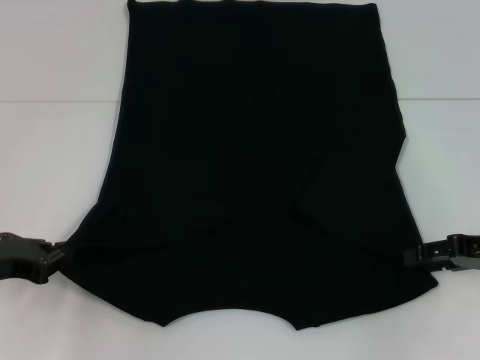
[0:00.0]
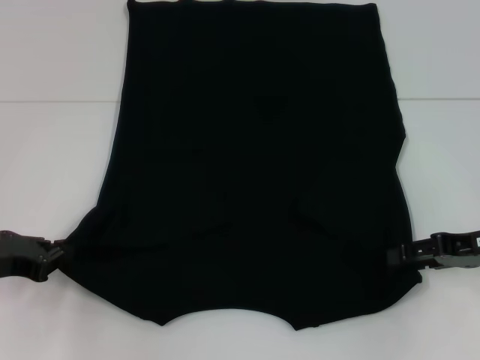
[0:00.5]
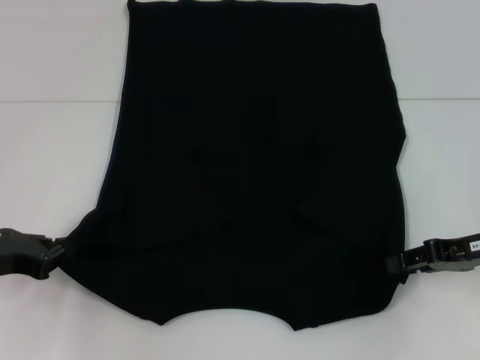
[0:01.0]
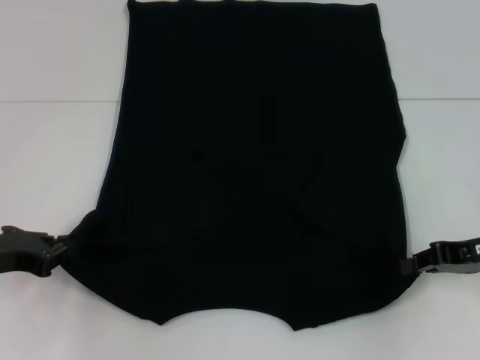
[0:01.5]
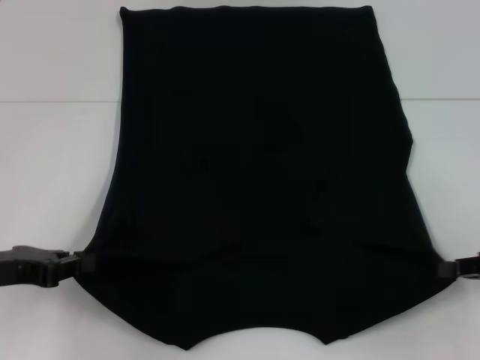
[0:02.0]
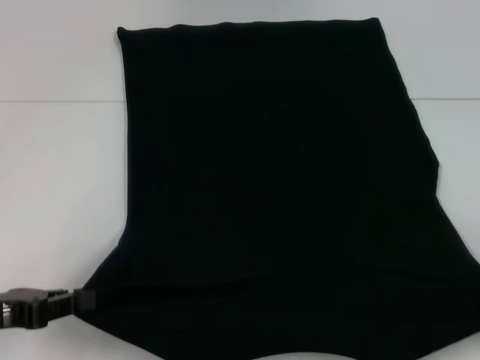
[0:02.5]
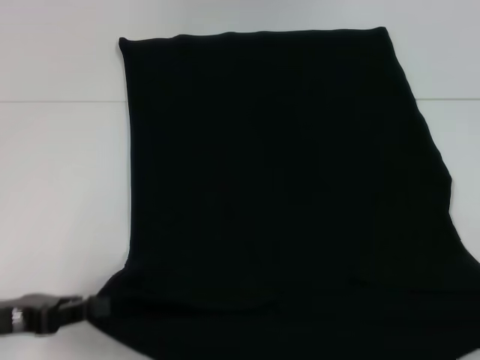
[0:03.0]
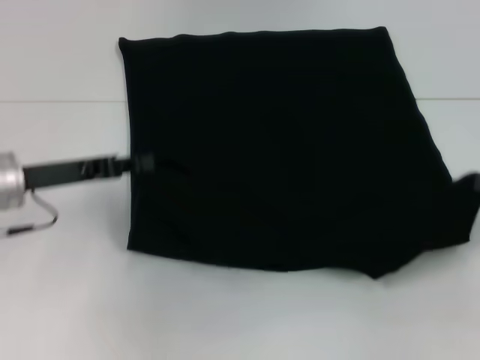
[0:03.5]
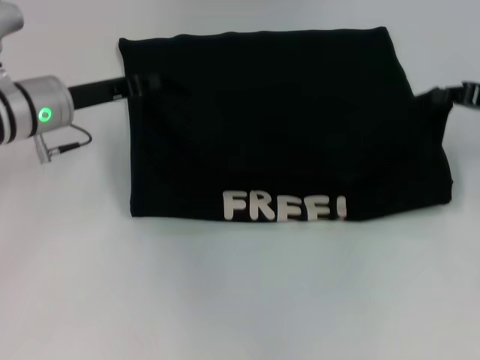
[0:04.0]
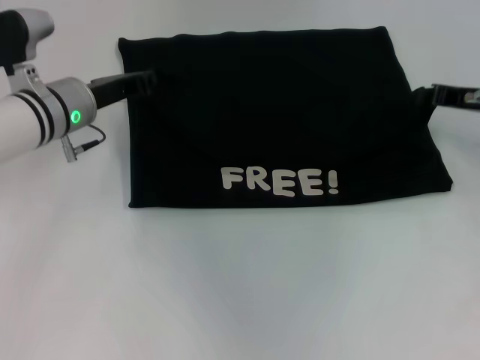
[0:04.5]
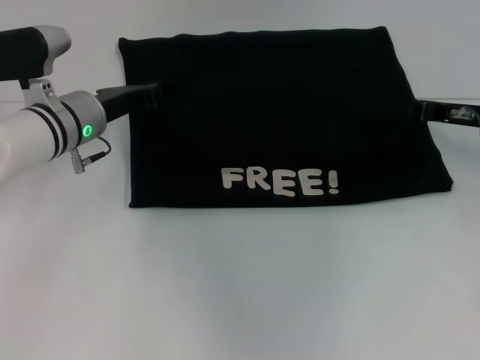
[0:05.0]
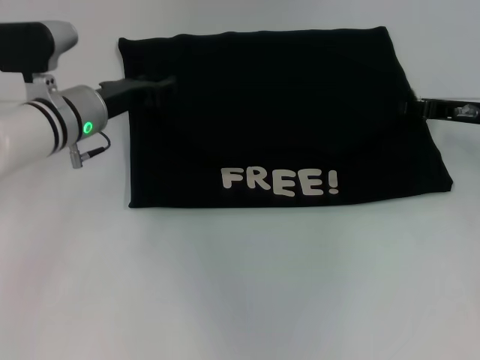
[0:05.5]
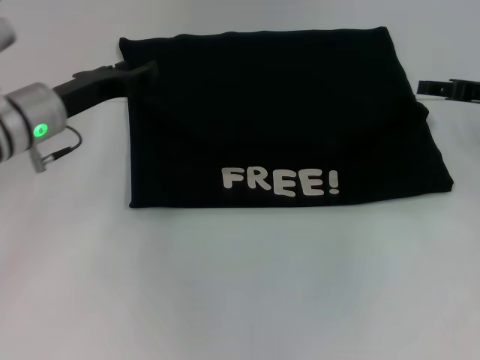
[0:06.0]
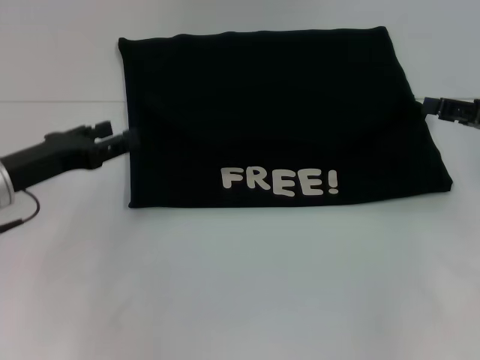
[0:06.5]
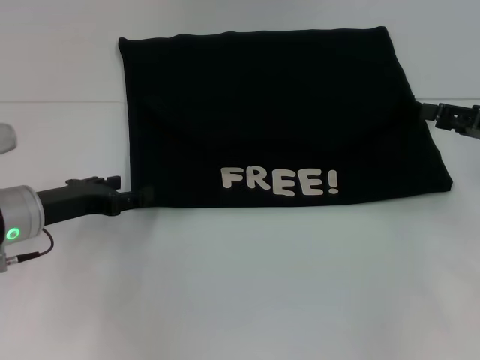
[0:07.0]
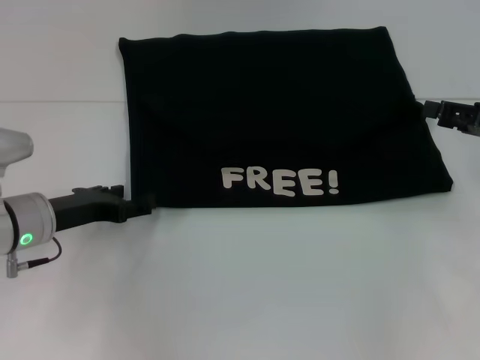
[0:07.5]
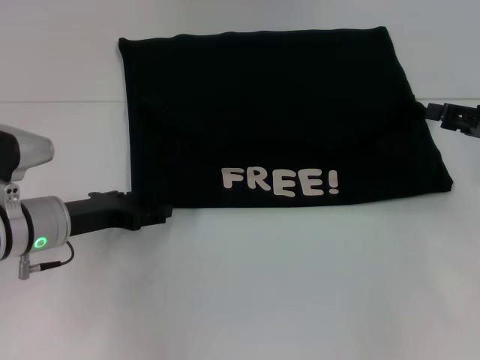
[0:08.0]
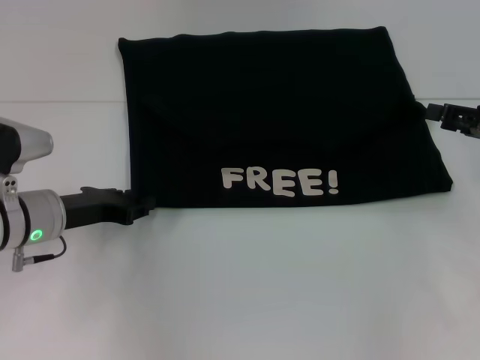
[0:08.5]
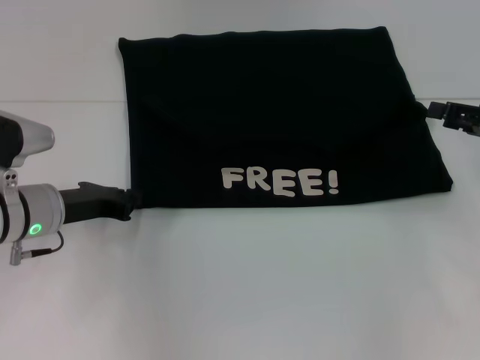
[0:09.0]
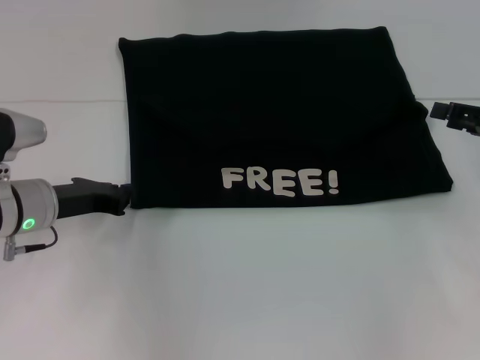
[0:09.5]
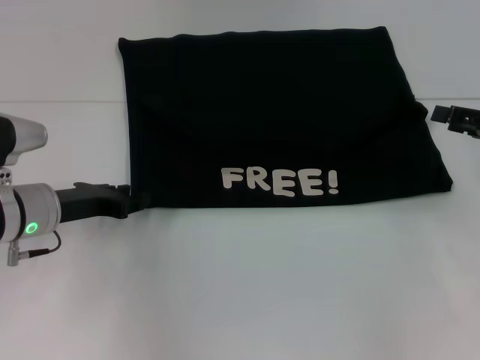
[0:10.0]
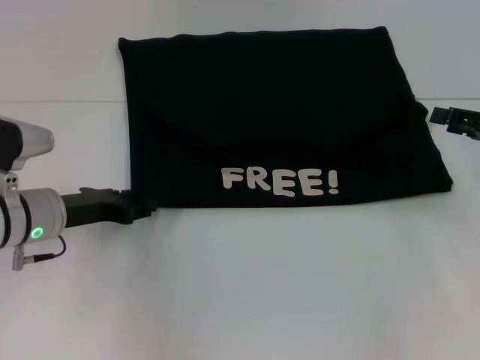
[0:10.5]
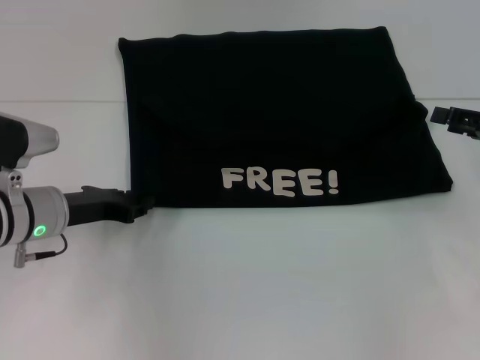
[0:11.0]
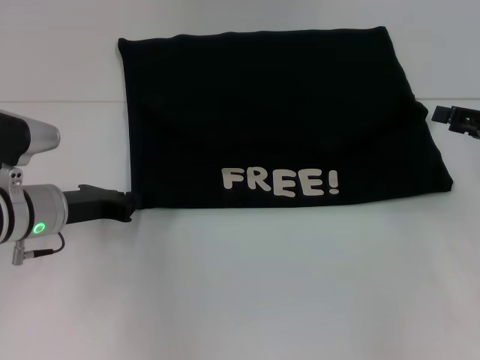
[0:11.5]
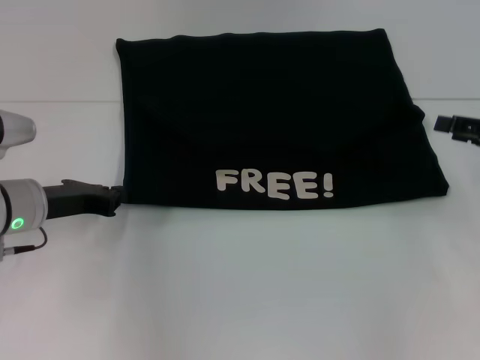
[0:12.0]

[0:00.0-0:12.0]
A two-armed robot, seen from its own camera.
Step, 0:02.0 to 0:06.0: Fold the clothes with your left hand.
Step, 0:02.0 to 0:06.0: Fold the clothes with your right hand.
0:00.0 to 0:02.0: The right gripper closes.
0:02.0 to 0:04.0: The left gripper heads forward and to the right, covering roughly 20 cm. The right gripper shifts some 15 cm forward and upward.
0:04.0 to 0:06.0: The left gripper opens, while the right gripper opens.
0:06.0 to 0:08.0: The left gripper shifts roughly 10 cm downward and backward. The right gripper heads backward, covering some 5 cm.
0:08.0 to 0:10.0: The left gripper closes up.
0:10.0 to 0:12.0: The left gripper opens and closes again.

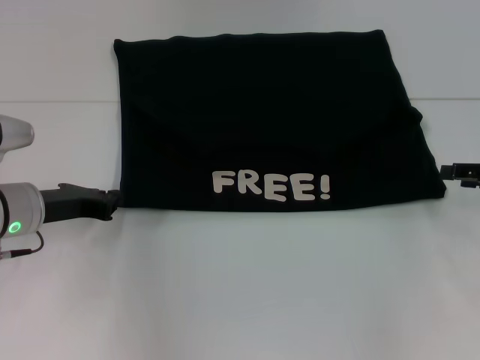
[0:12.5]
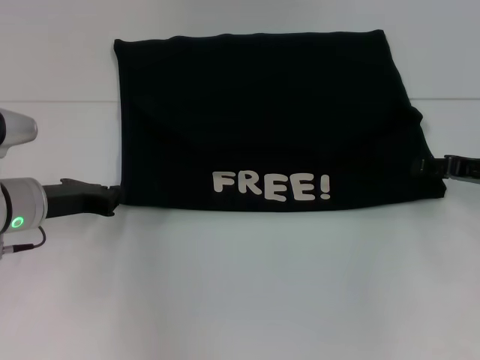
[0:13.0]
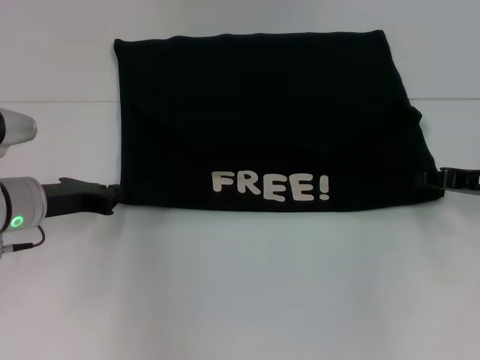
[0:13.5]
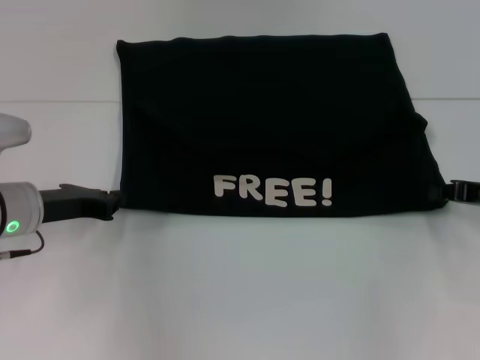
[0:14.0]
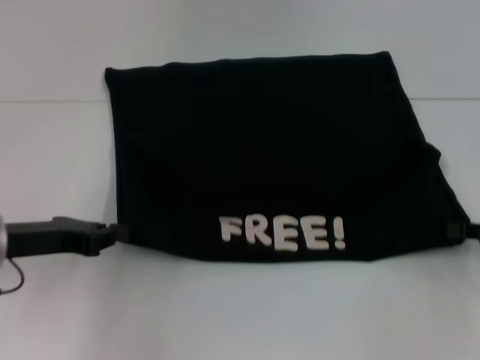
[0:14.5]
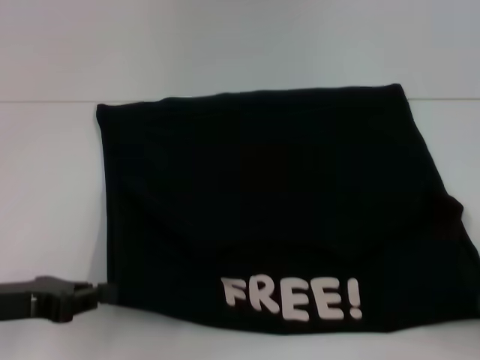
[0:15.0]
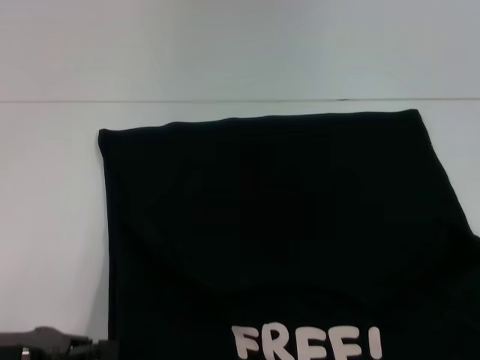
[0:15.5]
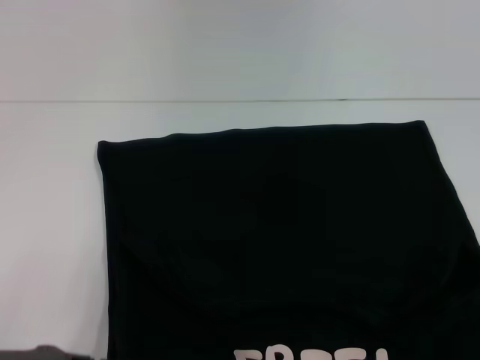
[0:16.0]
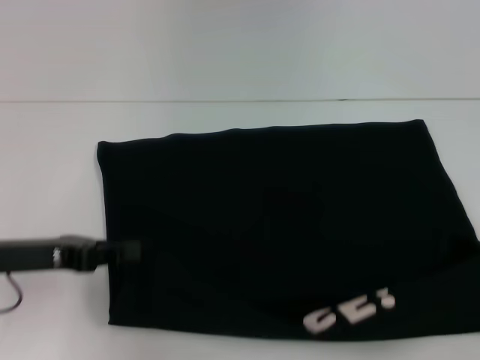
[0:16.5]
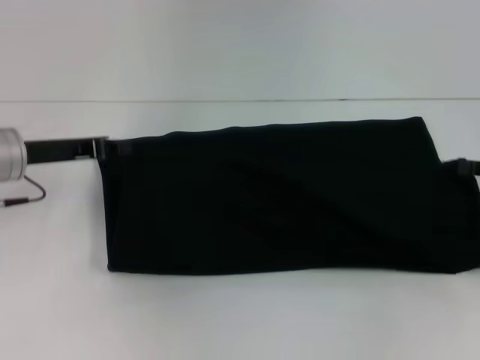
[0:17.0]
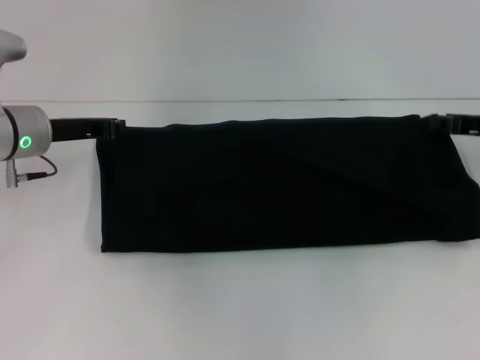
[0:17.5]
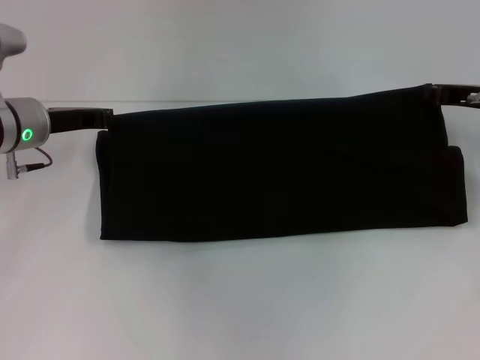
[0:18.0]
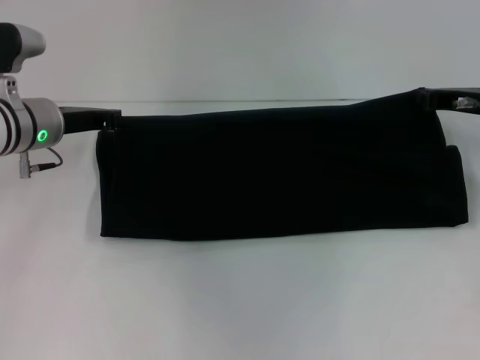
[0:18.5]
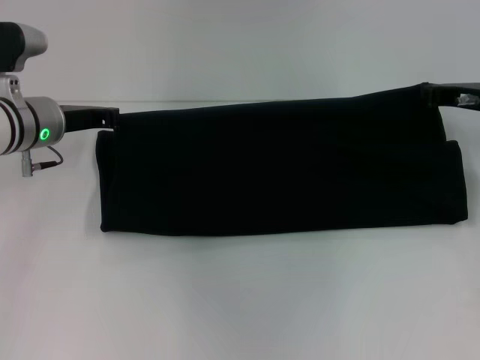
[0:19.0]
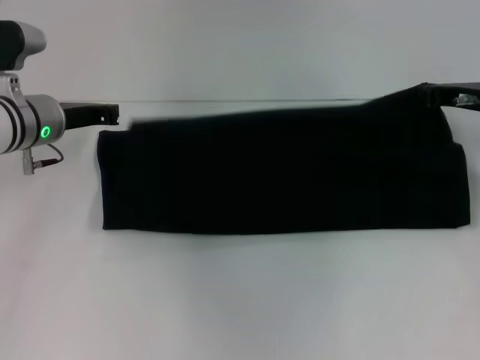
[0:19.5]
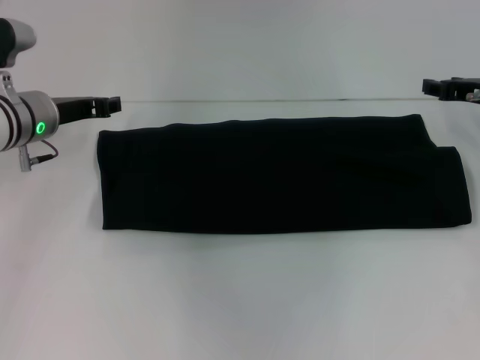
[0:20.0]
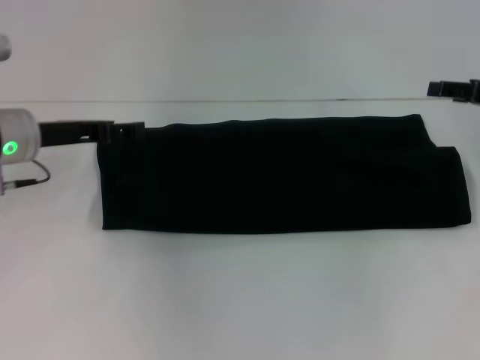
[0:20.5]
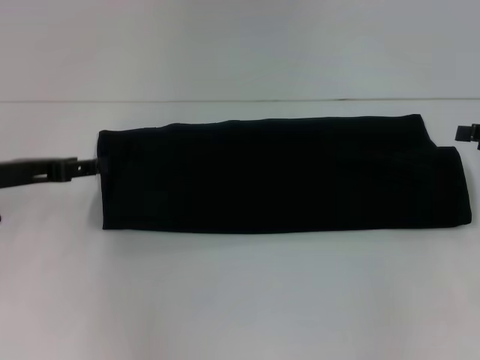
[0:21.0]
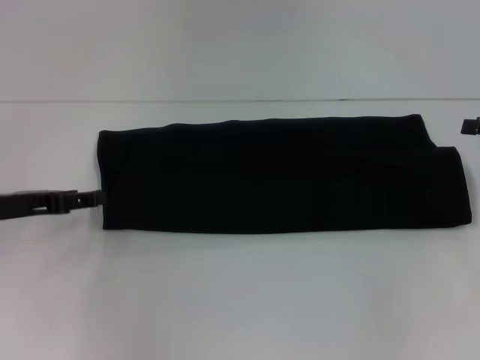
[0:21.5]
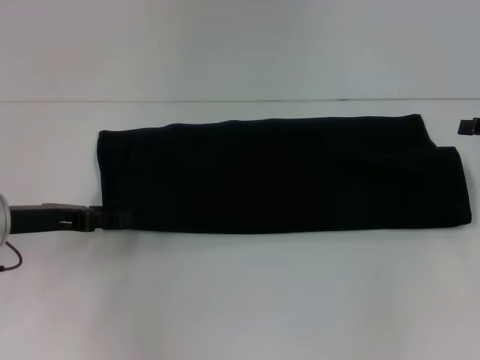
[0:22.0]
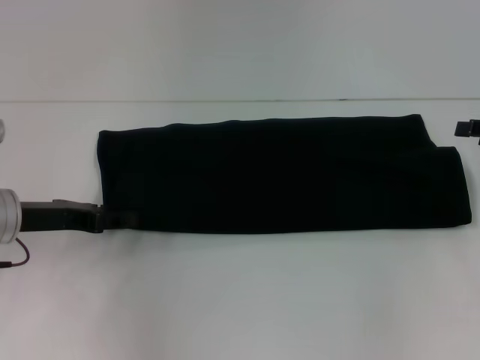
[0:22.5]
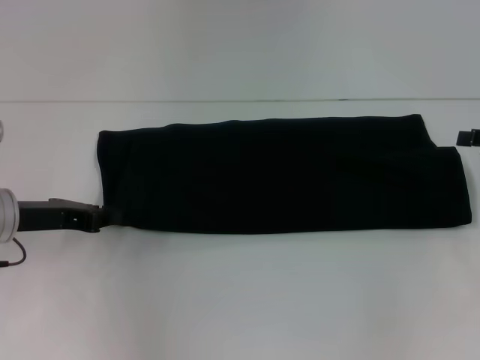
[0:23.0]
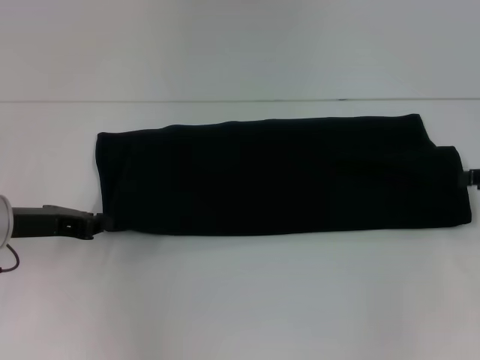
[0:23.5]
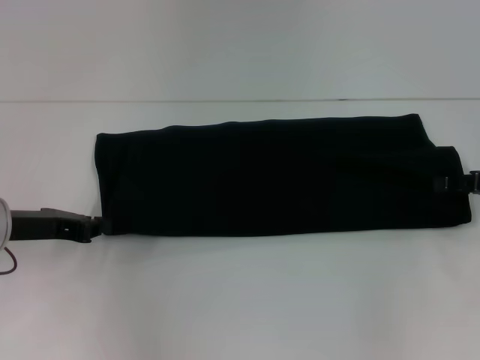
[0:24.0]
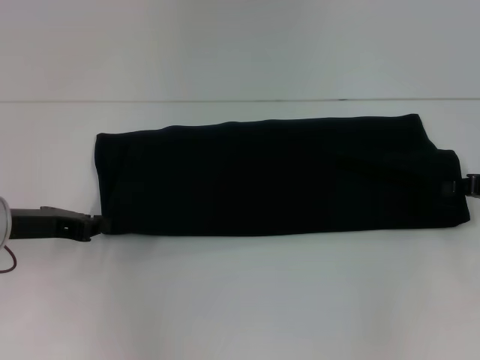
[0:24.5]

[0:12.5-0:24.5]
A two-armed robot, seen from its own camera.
Step, 0:12.5 to 0:15.5: Pull the clothes with your left hand.
Step, 0:12.5 to 0:15.5: Pull the clothes with your right hand.
Step, 0:16.0 to 0:19.5: Fold the clothes with your right hand.
0:12.5 to 0:14.5: The left gripper moves approximately 5 cm. The right gripper changes place by some 5 cm, and closes.
0:14.5 to 0:16.5: The right gripper heads backward, covering some 5 cm. Meanwhile the left gripper reaches roughly 10 cm backward, then returns.
0:16.5 to 0:18.5: The right gripper is displaced forward and to the left by some 25 cm; the left gripper shifts some 15 cm forward.
0:18.5 to 0:20.5: The left gripper opens its fingers. The right gripper is displaced to the right by roughly 5 cm, and opens up.
0:20.5 to 0:22.5: The left gripper goes about 5 cm backward.
0:22.5 to 0:24.5: The left gripper closes up; the right gripper closes.

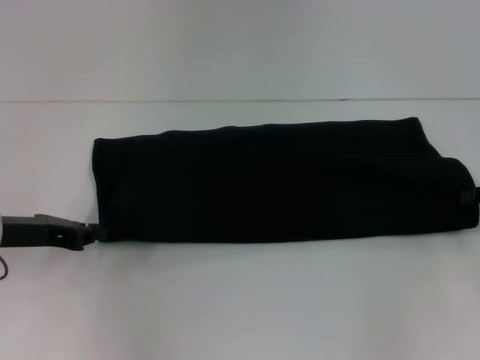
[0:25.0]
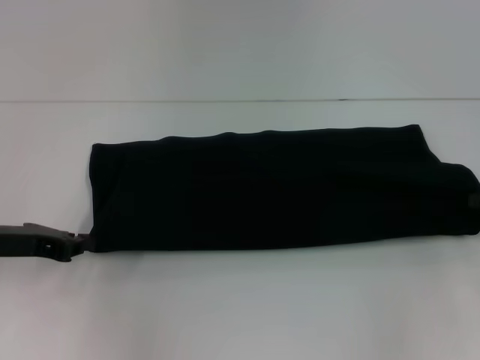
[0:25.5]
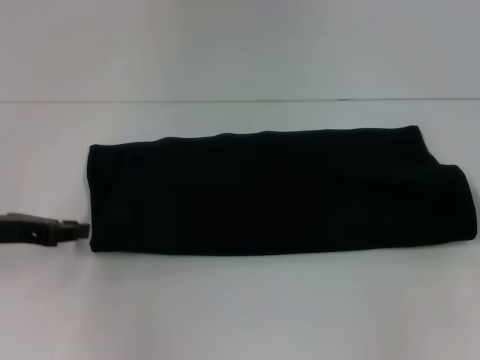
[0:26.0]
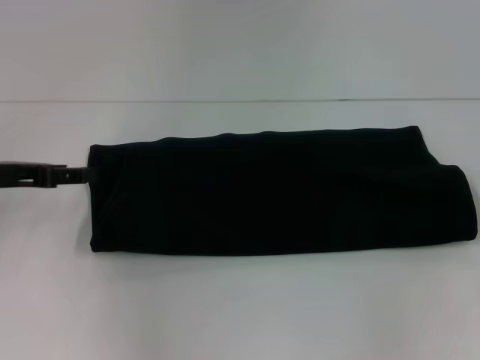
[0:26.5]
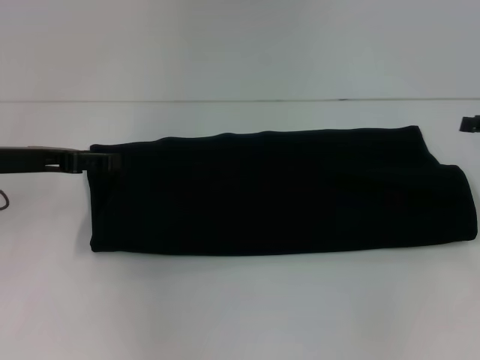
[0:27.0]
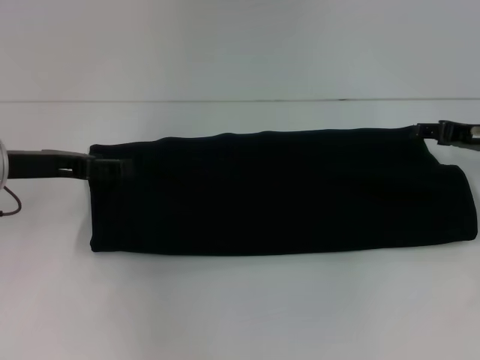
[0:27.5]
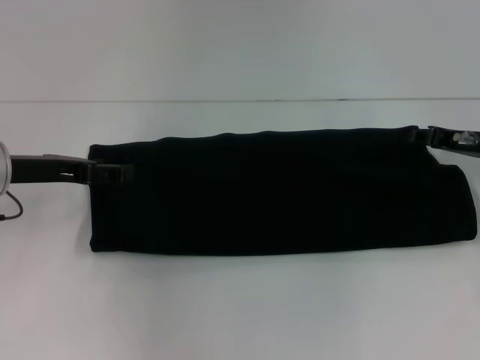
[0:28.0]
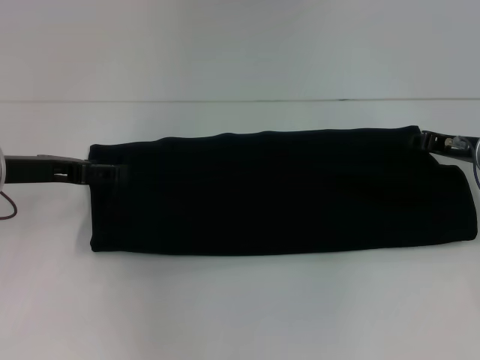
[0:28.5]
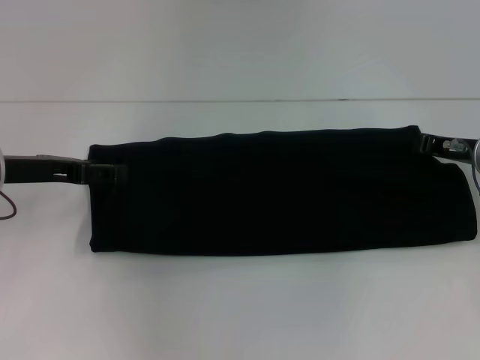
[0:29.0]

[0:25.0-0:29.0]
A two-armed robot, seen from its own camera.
0:25.0 to 0:27.0: The right gripper opens up, while the left gripper heads upward, covering approximately 5 cm, and opens.
0:27.0 to 0:29.0: The right gripper travels to the left and downward by roughly 10 cm, and closes up.
